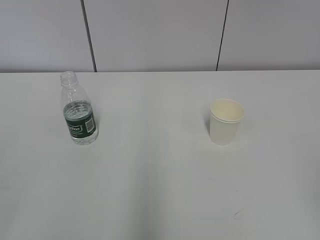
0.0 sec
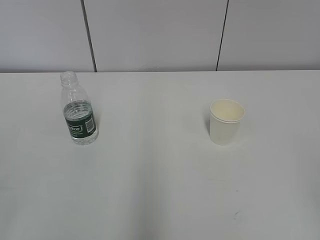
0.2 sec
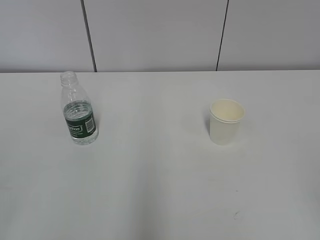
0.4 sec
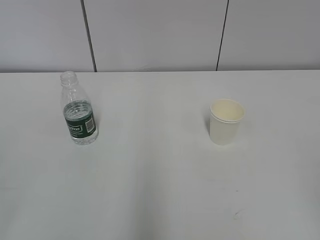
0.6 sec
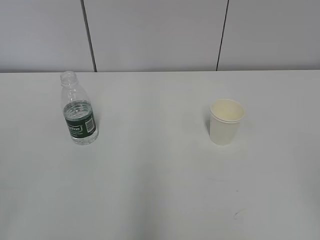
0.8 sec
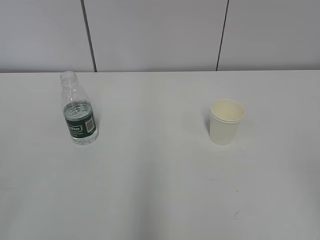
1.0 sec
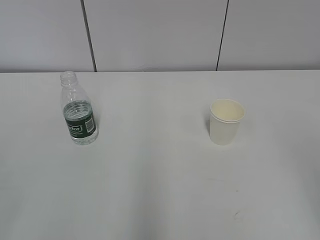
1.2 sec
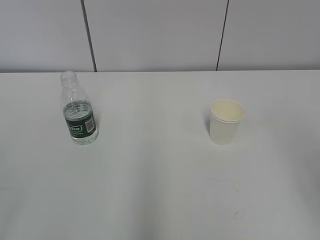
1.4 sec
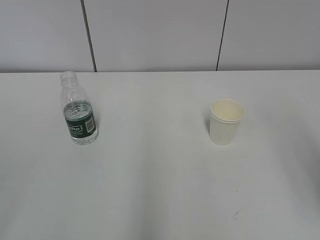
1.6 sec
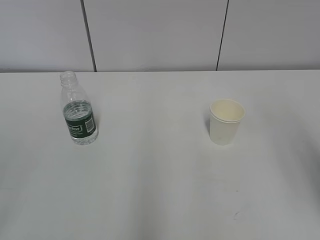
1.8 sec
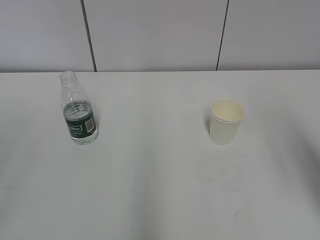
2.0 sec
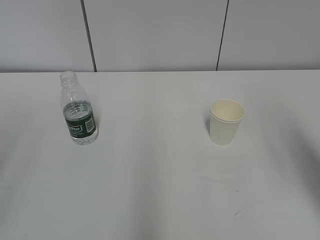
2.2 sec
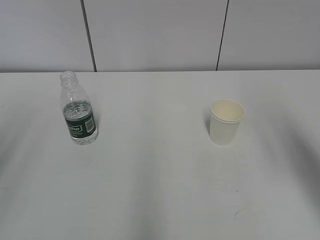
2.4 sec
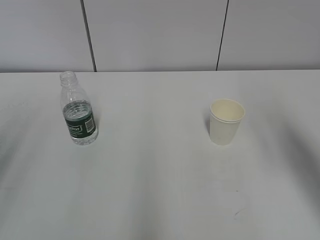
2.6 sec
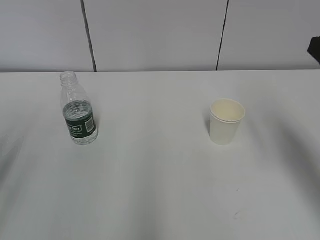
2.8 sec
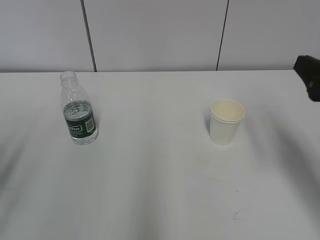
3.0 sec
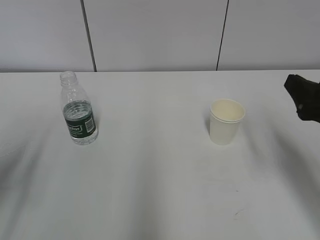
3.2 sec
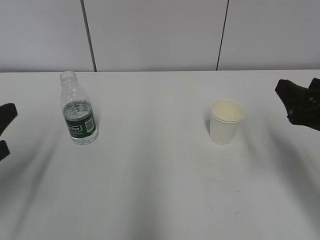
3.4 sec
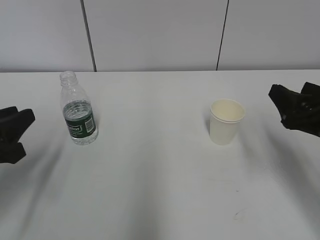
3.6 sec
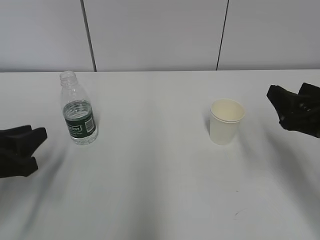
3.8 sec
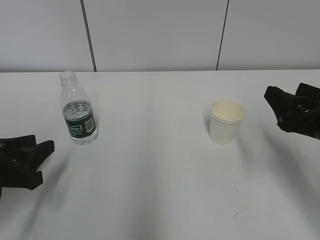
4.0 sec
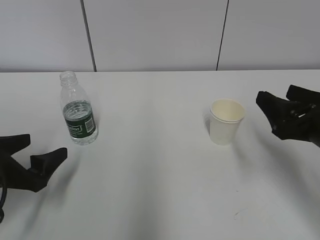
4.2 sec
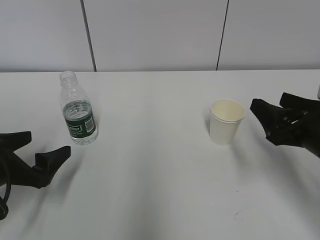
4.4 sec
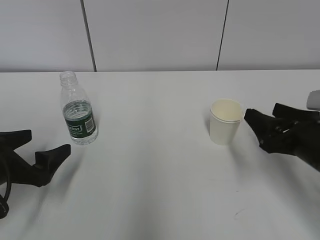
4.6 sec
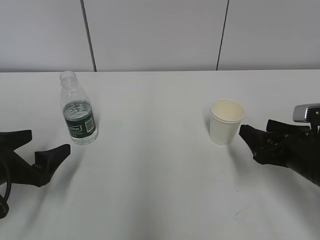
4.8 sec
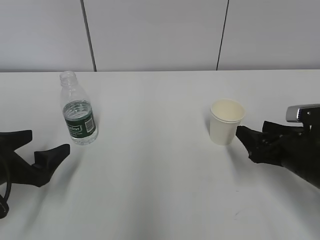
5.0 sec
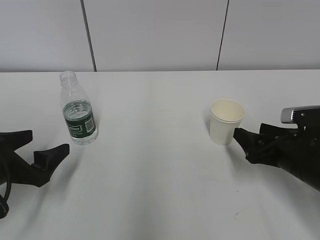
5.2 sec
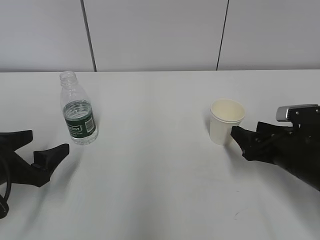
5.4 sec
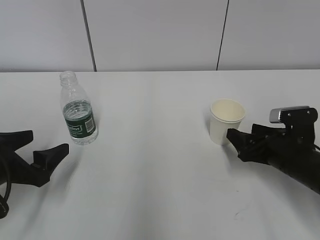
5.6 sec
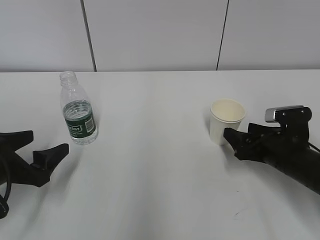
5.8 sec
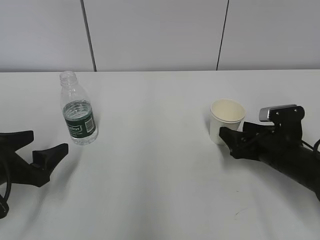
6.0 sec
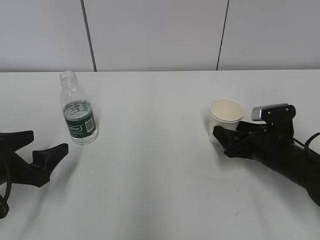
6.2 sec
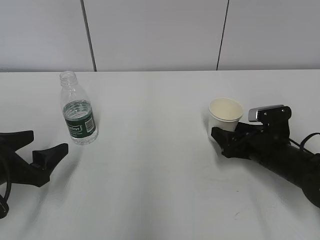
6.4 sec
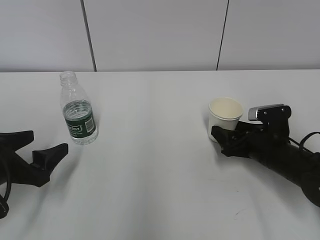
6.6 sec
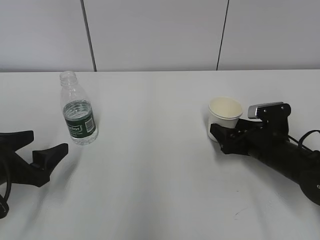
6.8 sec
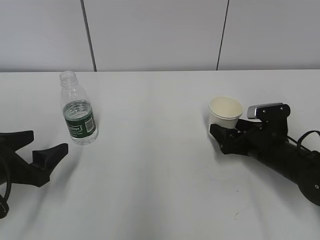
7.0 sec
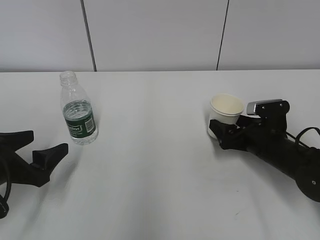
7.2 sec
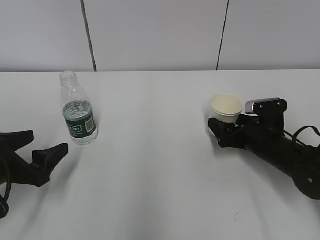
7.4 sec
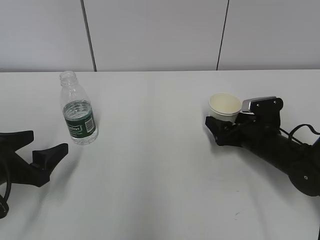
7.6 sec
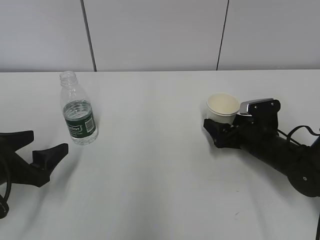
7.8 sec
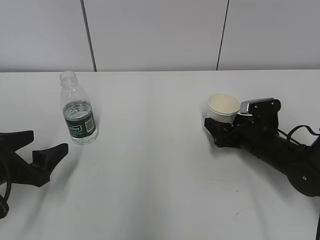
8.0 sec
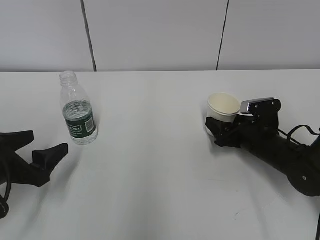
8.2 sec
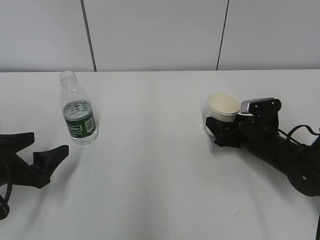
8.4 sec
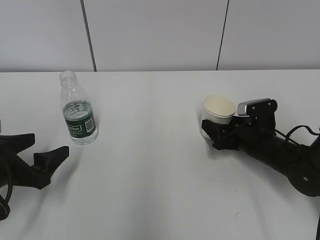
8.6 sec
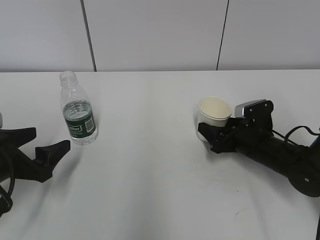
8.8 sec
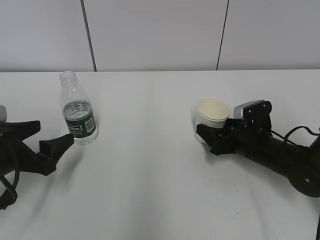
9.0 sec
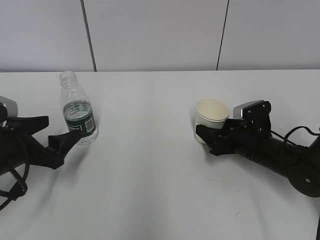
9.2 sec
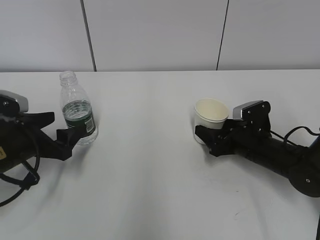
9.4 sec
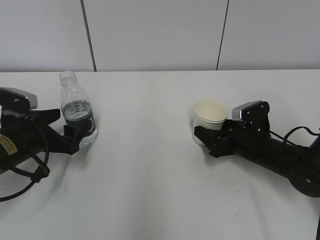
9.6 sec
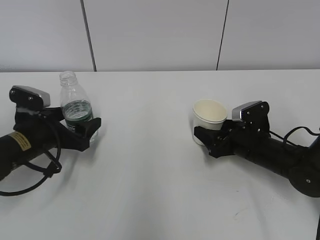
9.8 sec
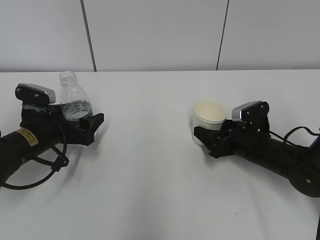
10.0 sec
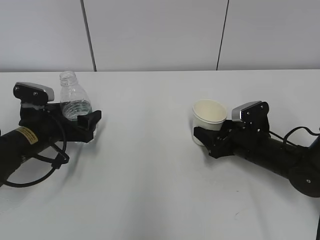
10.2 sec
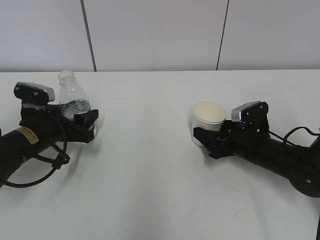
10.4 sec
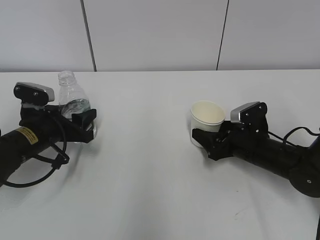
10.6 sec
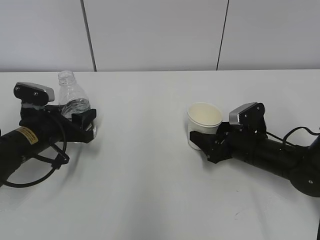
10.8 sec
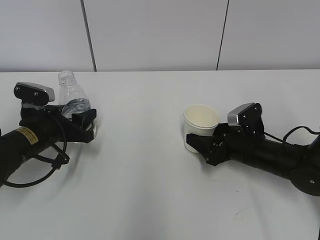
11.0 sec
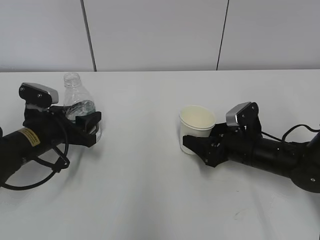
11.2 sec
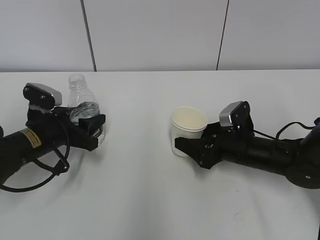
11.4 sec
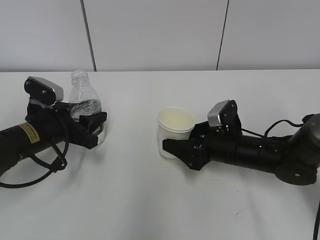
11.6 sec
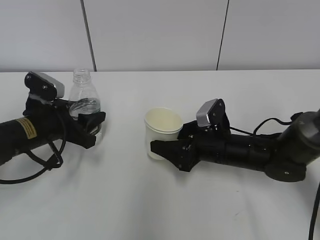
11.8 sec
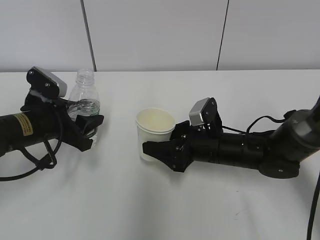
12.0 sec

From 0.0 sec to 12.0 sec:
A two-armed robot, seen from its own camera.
Step, from 0.0 sec to 7.0 sec: Grab the paper cup with the right hand.
Step, from 7.2 sec to 9.0 sec: Grab the water bottle with the left hand.
From 1.6 sec to 3.0 sec: The right gripper is displaced forward and downward by approximately 15 cm.
From 3.0 sec to 4.4 sec: The left gripper shifts approximately 15 cm downward and forward, and opens. Meanwhile the right gripper moves downward, roughly 10 cm.
From 4.4 sec to 6.0 sec: The right gripper is displaced downward and forward by approximately 10 cm.
From 6.0 sec to 7.6 sec: The right gripper moves about 5 cm, and opens up.
From 7.6 sec to 9.0 sec: The right gripper closes.
From 9.0 sec to 10.4 sec: The left gripper heads forward, covering about 10 cm.
From 10.4 sec to 12.0 sec: The right gripper heads to the left, covering approximately 10 cm.

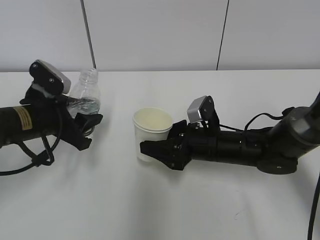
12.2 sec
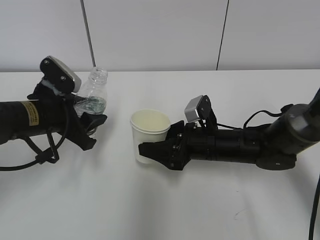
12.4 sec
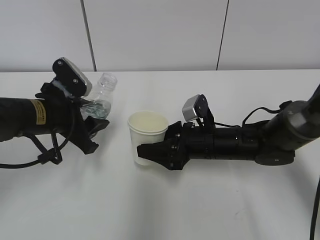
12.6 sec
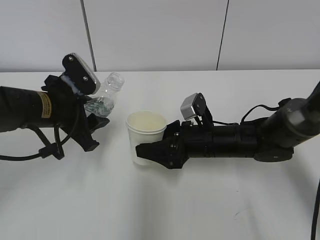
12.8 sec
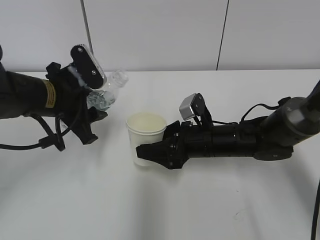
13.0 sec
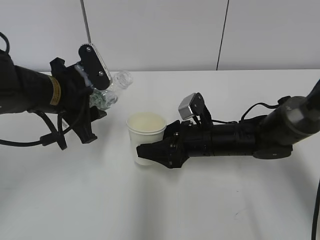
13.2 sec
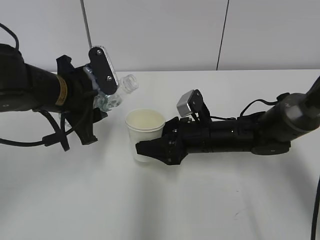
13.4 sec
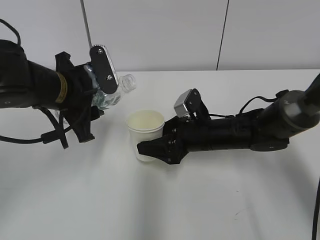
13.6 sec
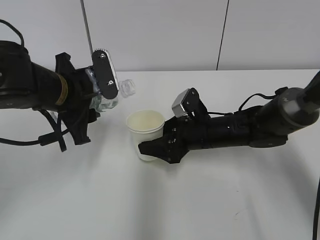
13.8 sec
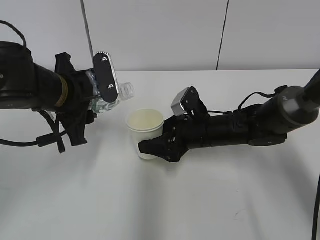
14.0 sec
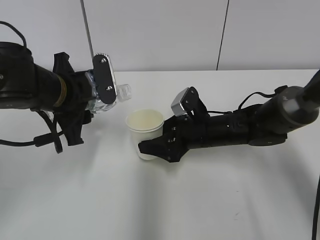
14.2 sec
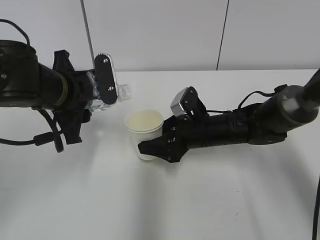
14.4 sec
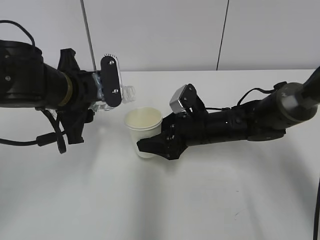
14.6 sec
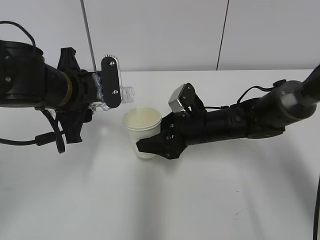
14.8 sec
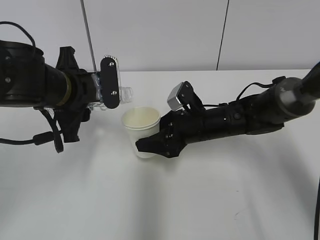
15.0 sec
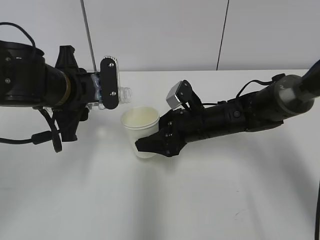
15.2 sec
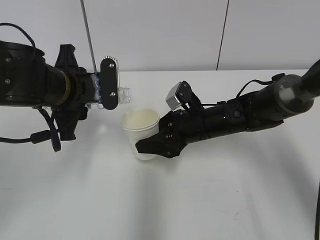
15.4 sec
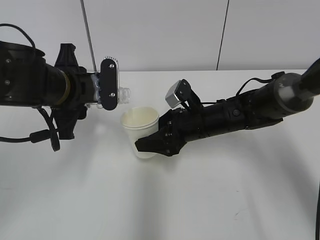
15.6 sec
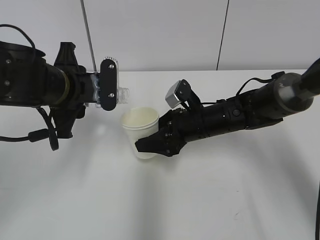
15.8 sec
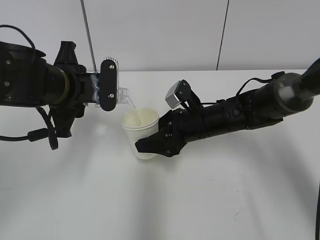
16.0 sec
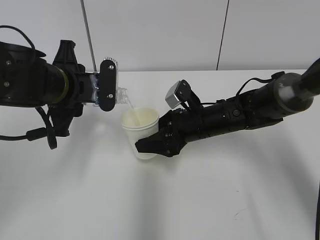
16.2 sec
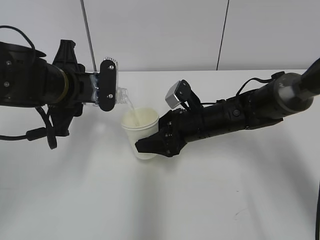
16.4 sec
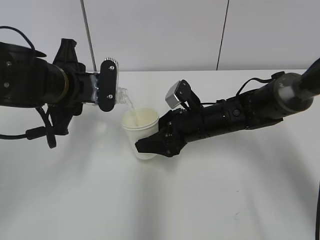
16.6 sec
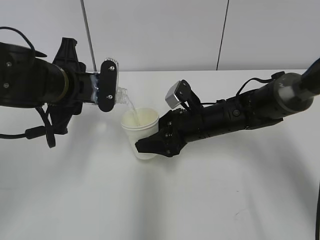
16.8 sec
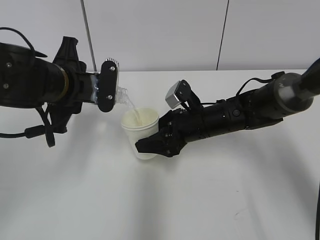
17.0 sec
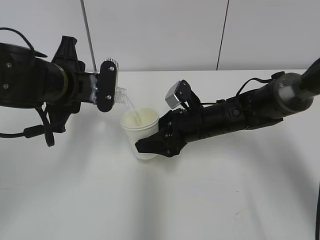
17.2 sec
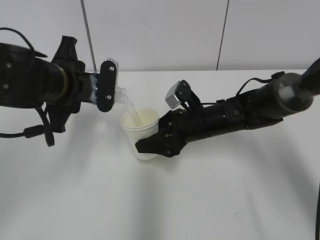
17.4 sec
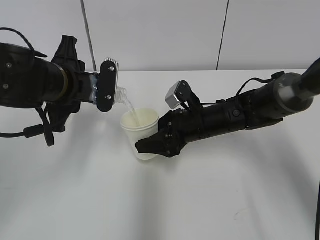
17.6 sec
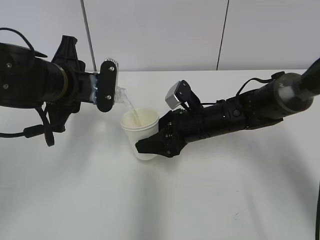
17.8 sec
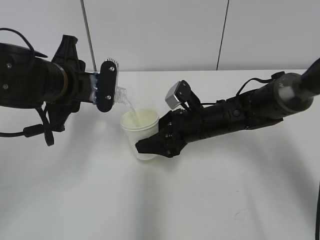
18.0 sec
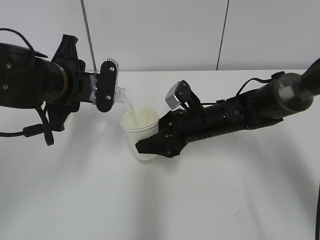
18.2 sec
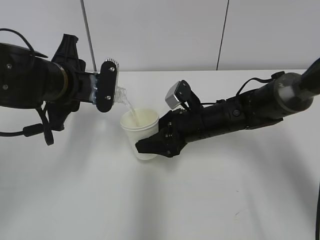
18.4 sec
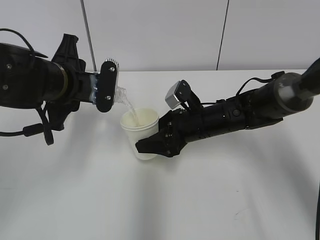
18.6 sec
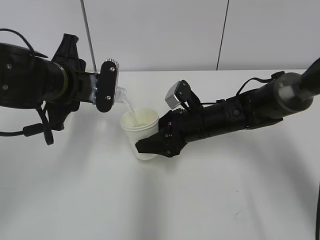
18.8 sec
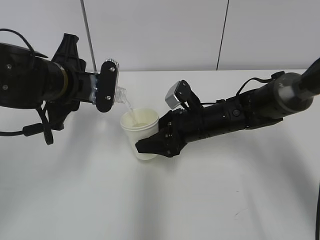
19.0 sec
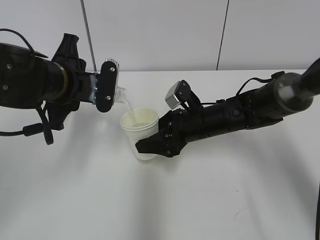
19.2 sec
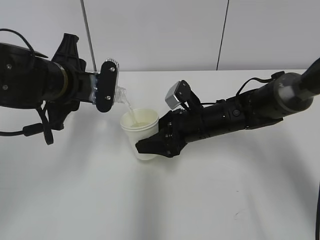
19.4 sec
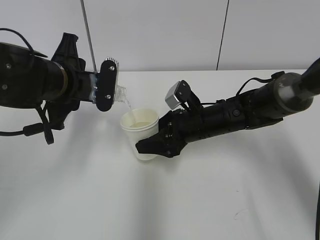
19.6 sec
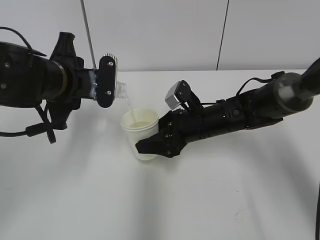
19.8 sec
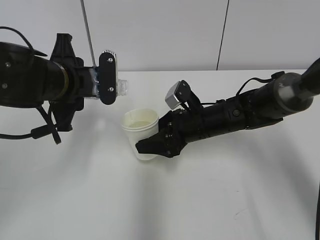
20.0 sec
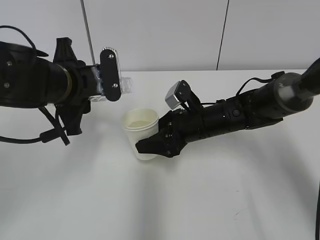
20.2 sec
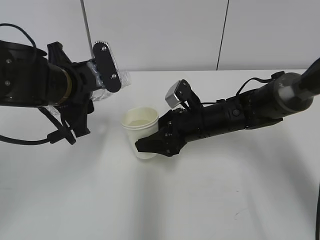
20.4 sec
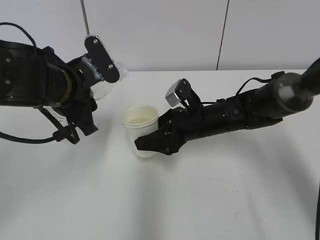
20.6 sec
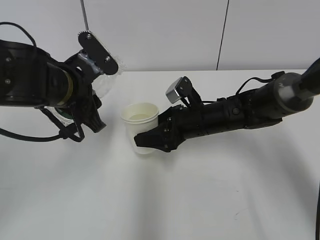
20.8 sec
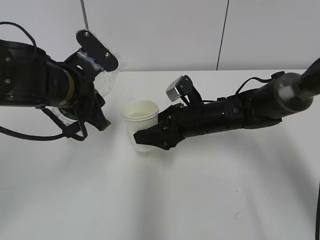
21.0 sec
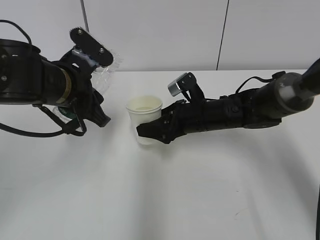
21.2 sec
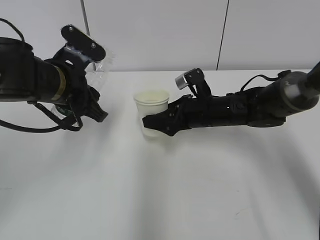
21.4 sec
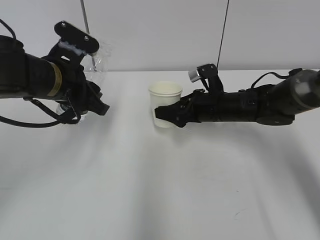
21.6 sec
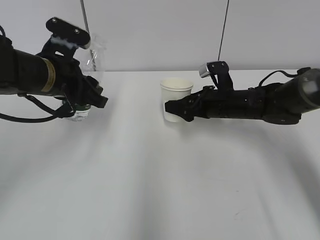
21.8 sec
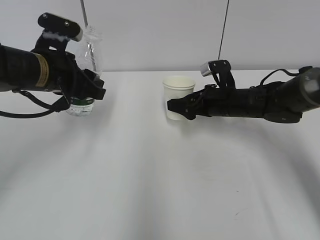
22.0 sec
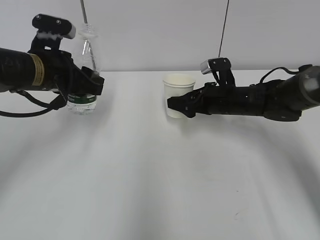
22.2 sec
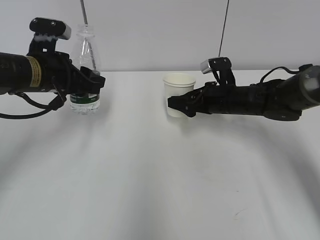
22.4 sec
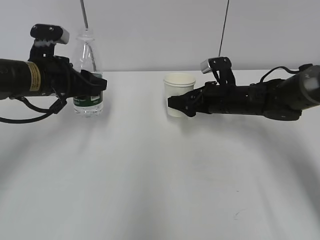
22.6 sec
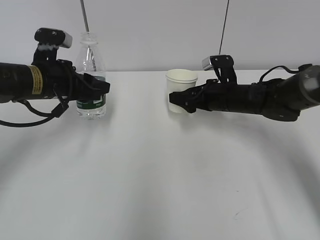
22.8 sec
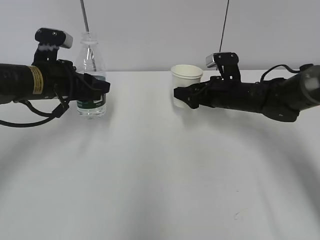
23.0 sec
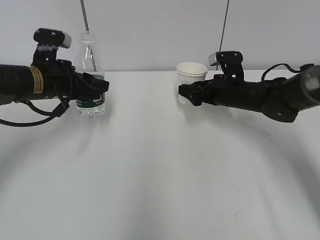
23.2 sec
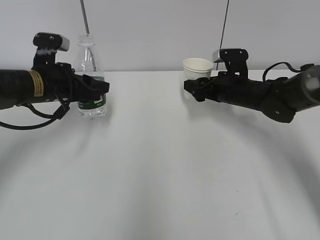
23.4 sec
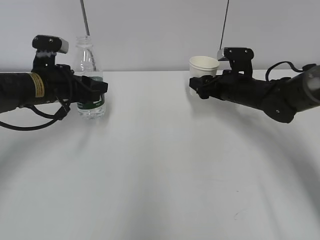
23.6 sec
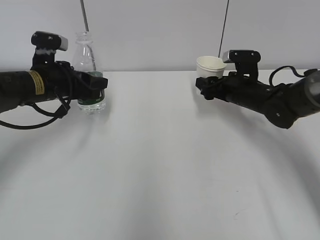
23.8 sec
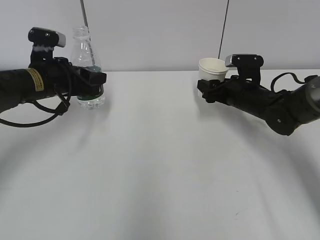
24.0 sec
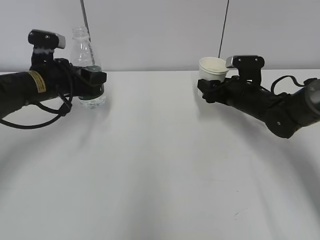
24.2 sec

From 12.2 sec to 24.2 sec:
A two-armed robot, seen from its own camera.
Step, from 13.2 sec to 16.6 sec: Fill water with the right hand.
Step, from 13.2 sec to 16.6 sec: Pour water with the left hand.
Step, from 16.8 sec to 18.4 sec: Collect water with the left hand.
Step, from 18.6 sec to 23.8 sec: Place the paper cup with the right hand.
From 12.2 sec to 13.8 sec: The left gripper shifts roughly 10 cm upward and to the right.
From 13.8 sec to 15.2 sec: The grippers move only a little.
From 15.2 sec to 18.2 sec: The grippers stay close to where they were, moving slightly.
From 18.2 sec to 19.8 sec: Both grippers stay put.
From 21.2 sec to 22.6 sec: The left gripper heads to the left, covering some 5 cm; the right gripper heads to the right, covering roughly 5 cm.
